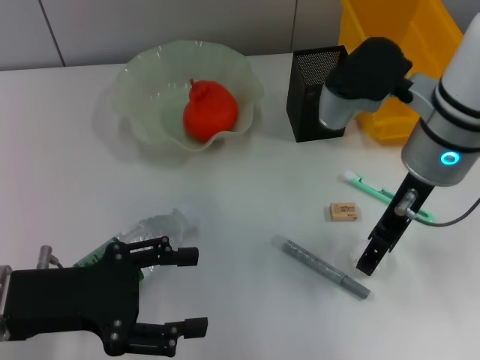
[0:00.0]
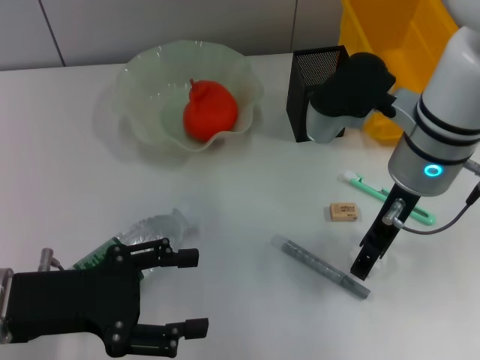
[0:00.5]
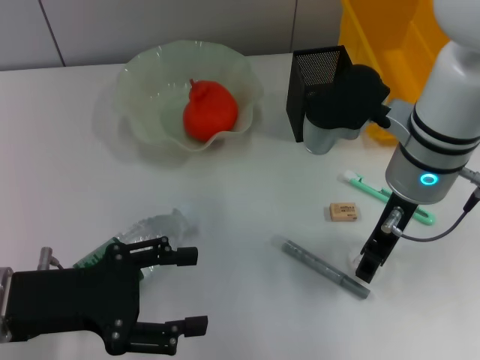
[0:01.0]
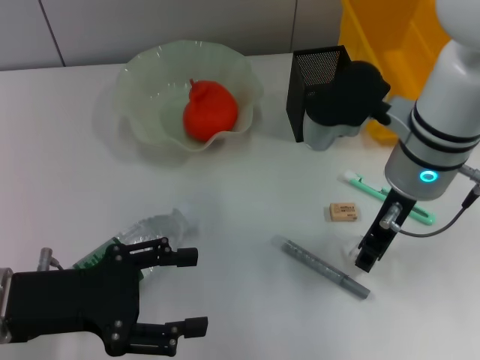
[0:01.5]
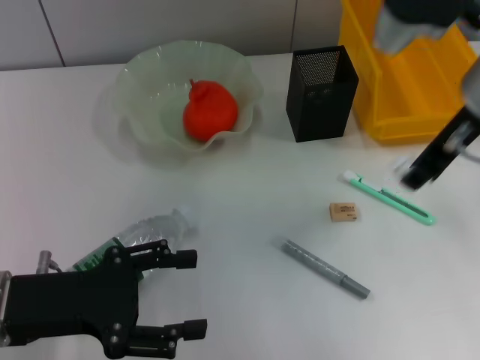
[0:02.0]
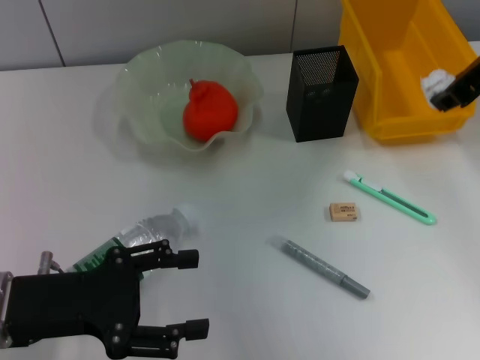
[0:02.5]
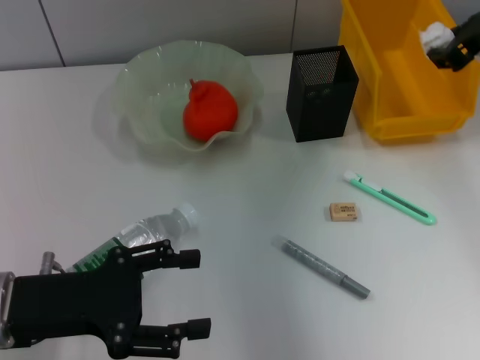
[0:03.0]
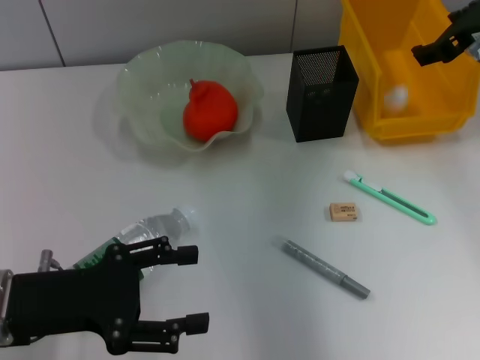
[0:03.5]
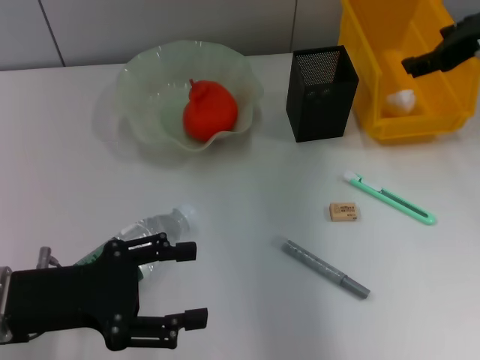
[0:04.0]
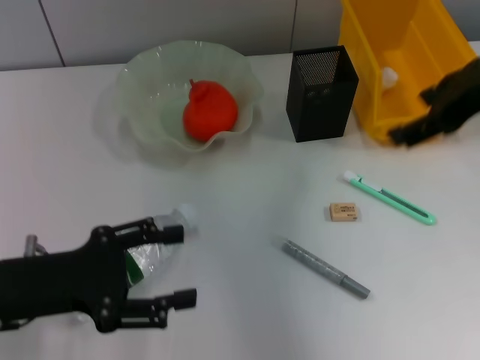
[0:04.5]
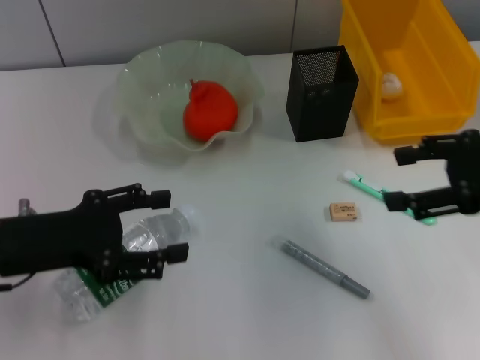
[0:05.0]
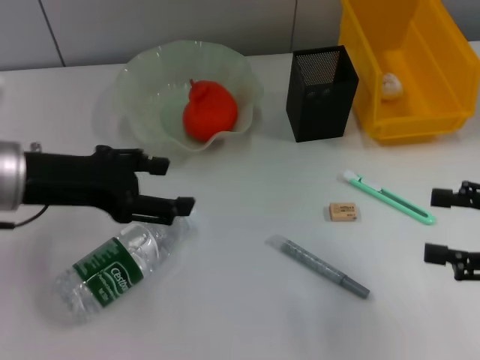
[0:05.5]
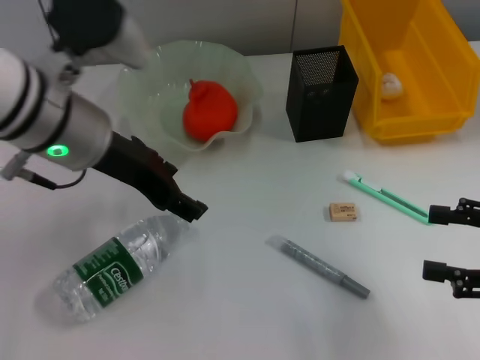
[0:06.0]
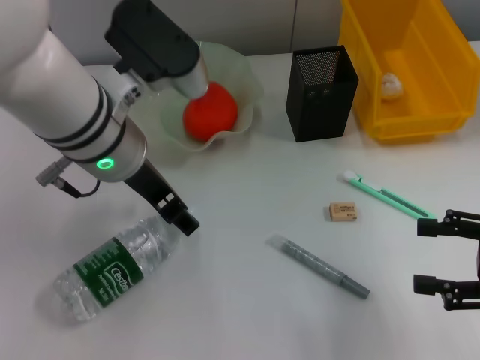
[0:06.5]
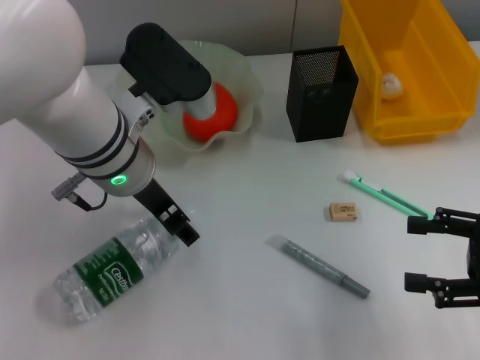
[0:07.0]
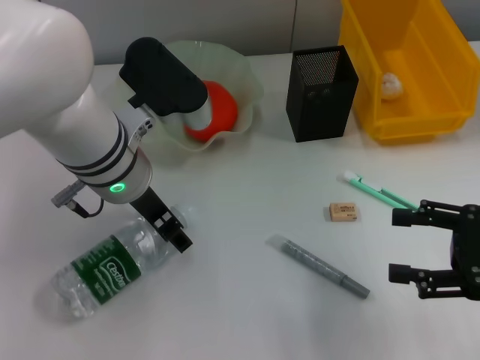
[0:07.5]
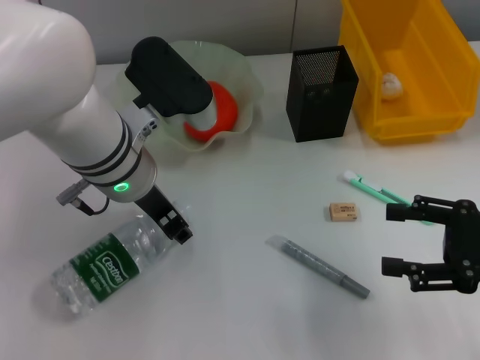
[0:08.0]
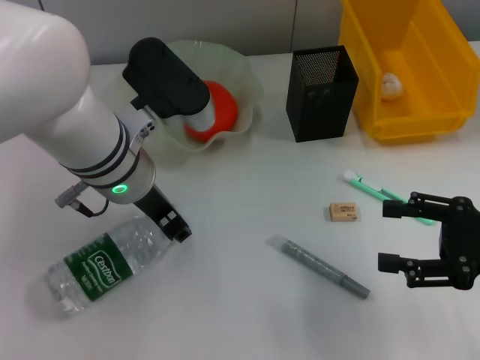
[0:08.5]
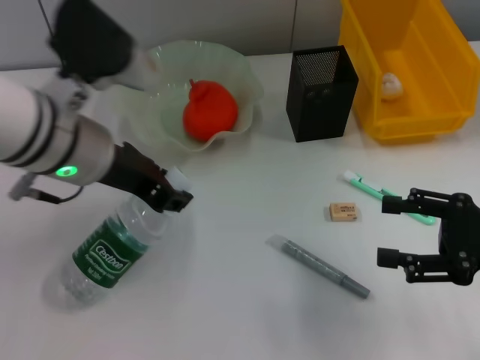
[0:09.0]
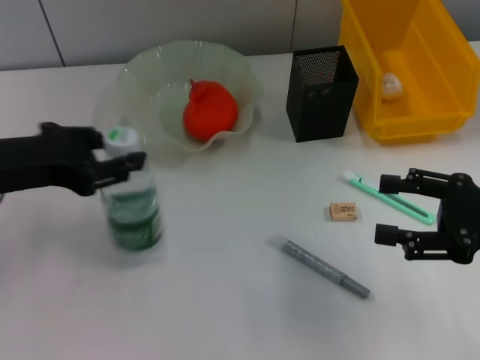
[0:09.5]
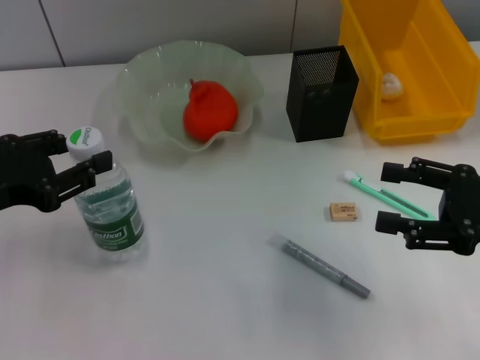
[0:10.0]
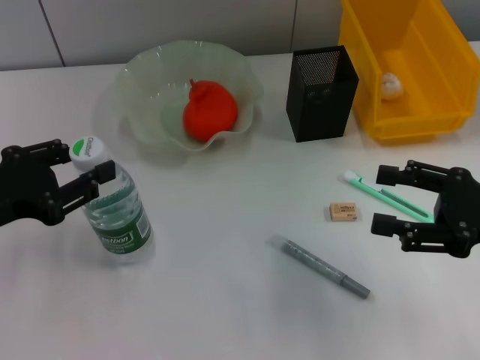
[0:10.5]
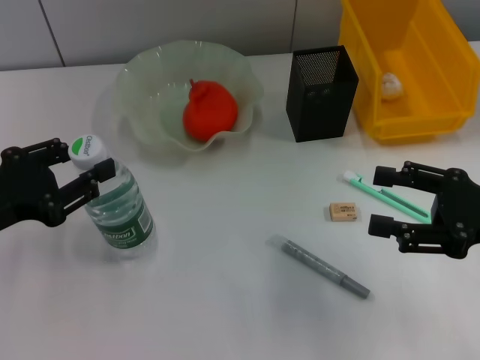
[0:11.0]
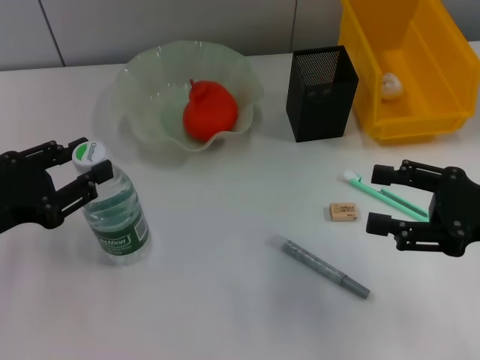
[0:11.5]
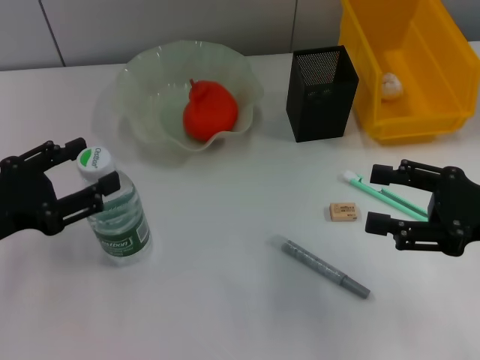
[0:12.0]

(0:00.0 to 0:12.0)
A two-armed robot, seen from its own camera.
Step, 0:02.0 - 0:03.5: Place the paper ball into the trash can with the right hand.
Step, 0:04.0 - 0:08.0: Grab the water bottle with the left hand.
0:00.0 - 0:02.0: The right gripper heads upward, covering approximately 5 cm, and closes up.
0:02.0 - 0:04.0: The right gripper moves to the right and forward, some 10 cm, and opens.
0:04.0 - 0:06.0: The right gripper moves backward and downward, some 20 cm, while the left gripper travels forward, upward and to the right by roughly 20 cm.
0:06.0 - 0:08.0: The left gripper moves downward, about 5 cm.
0:08.0 - 0:10.0: The left gripper heads to the left and backward, covering roughly 20 cm.
0:10.0 - 0:12.0: The grippers stay close to where they were, moving slightly.

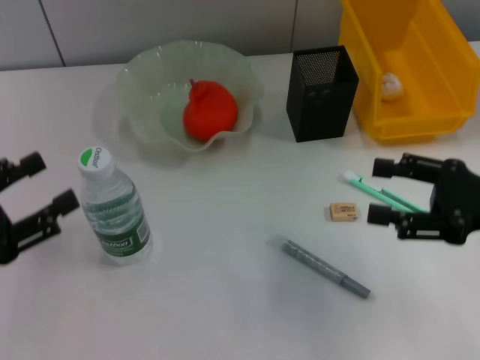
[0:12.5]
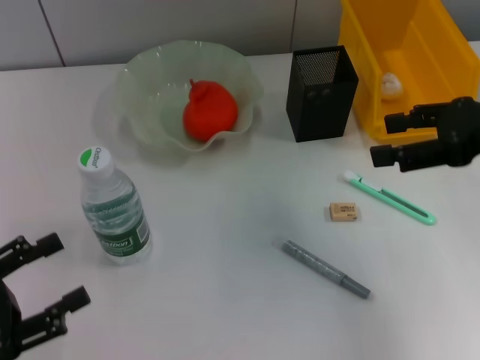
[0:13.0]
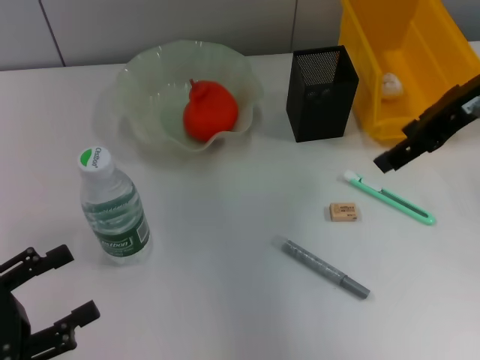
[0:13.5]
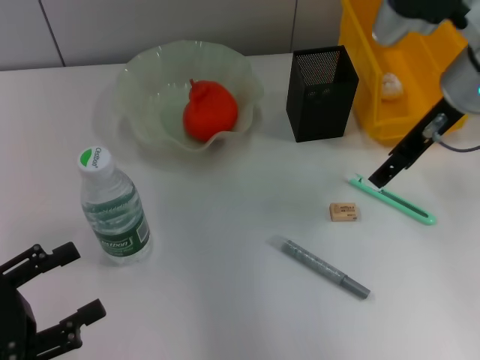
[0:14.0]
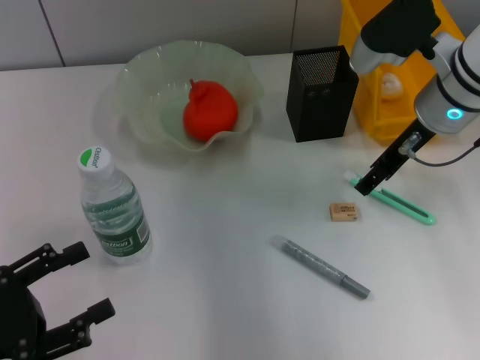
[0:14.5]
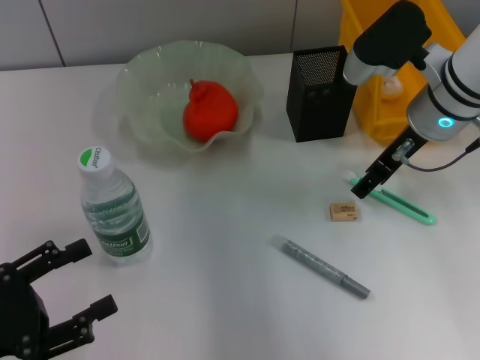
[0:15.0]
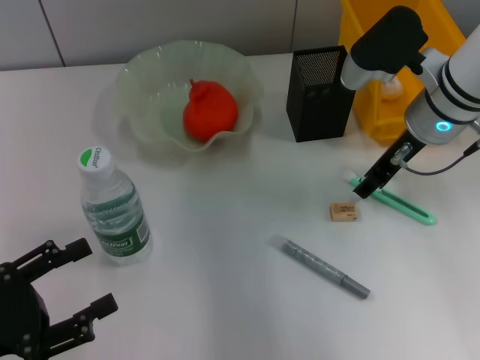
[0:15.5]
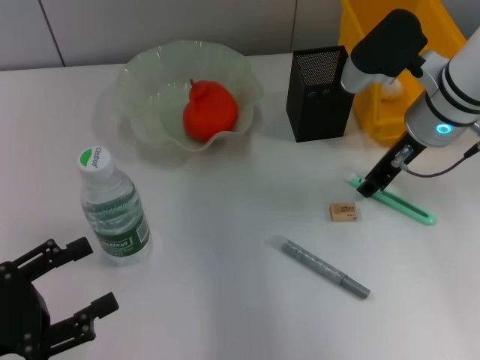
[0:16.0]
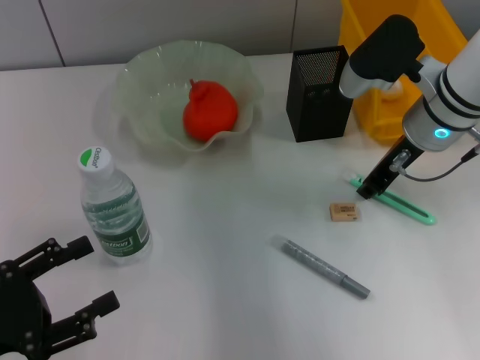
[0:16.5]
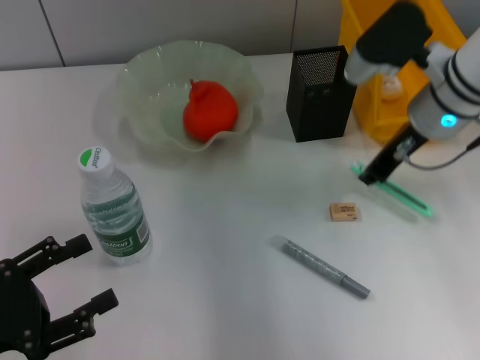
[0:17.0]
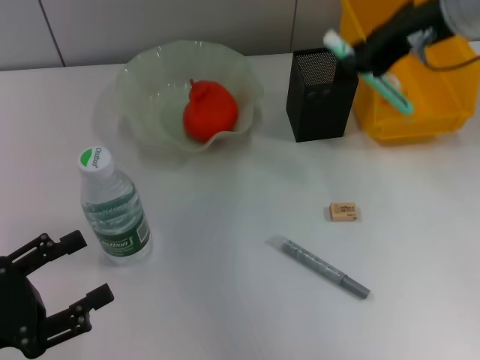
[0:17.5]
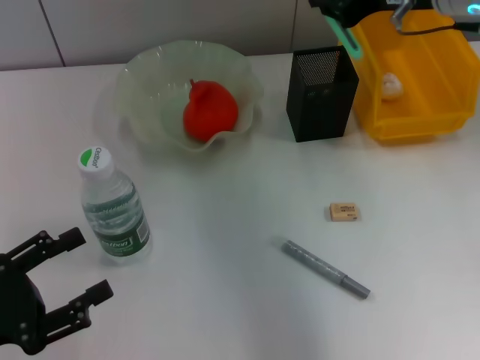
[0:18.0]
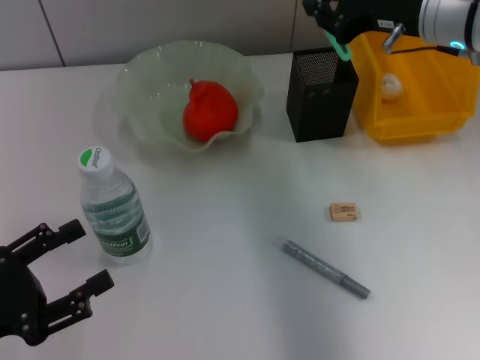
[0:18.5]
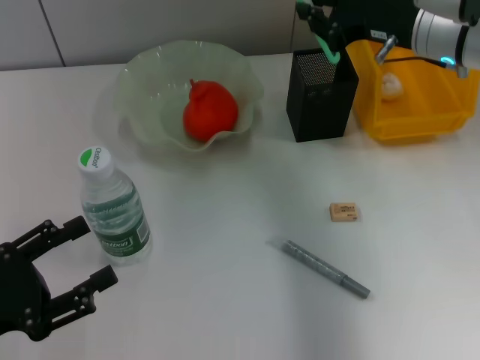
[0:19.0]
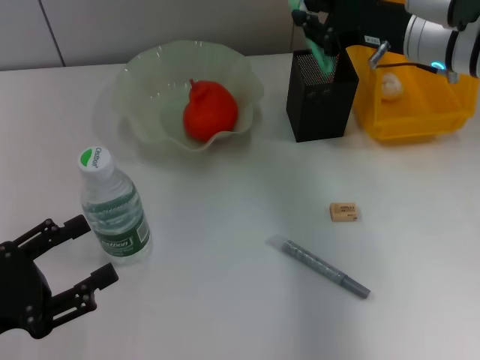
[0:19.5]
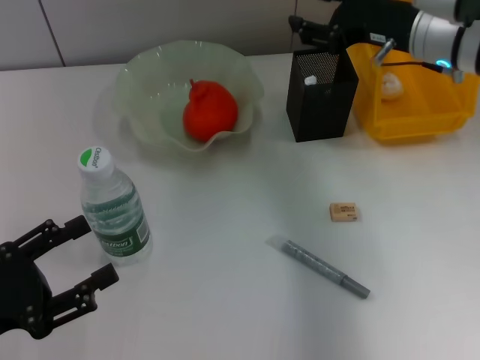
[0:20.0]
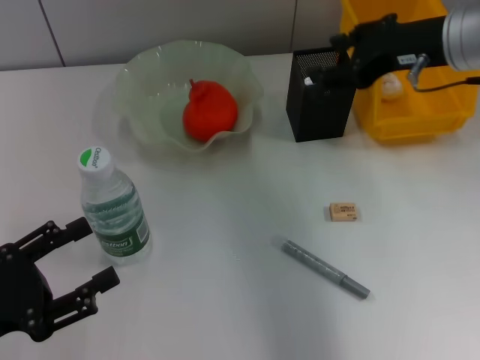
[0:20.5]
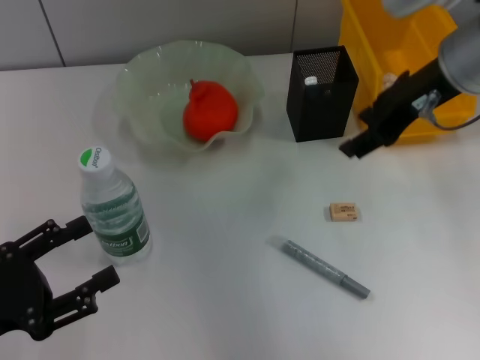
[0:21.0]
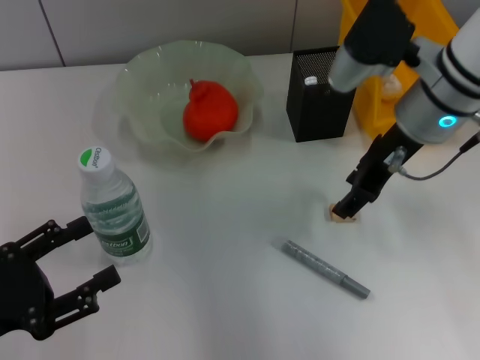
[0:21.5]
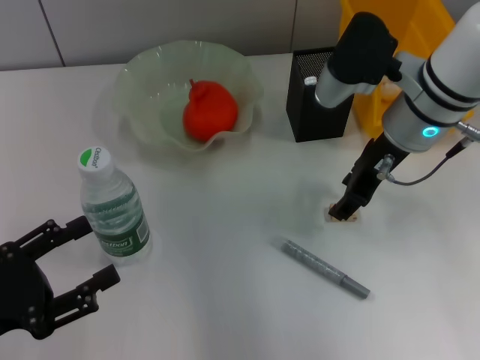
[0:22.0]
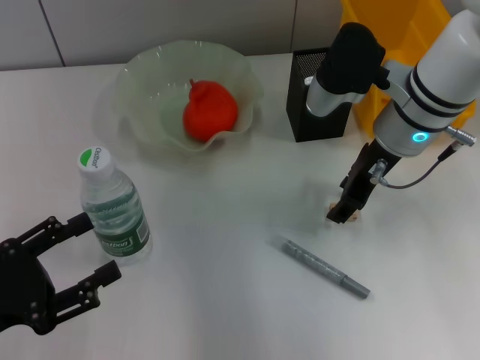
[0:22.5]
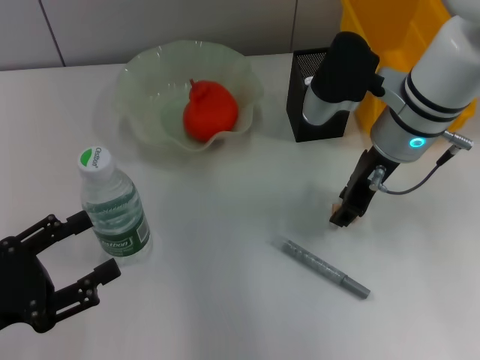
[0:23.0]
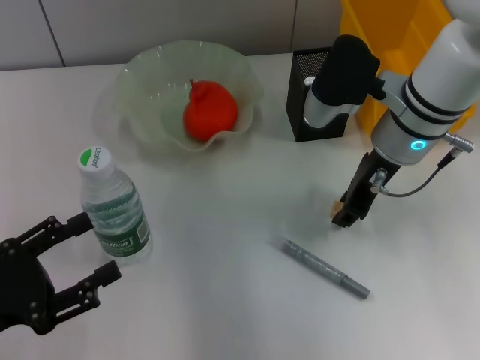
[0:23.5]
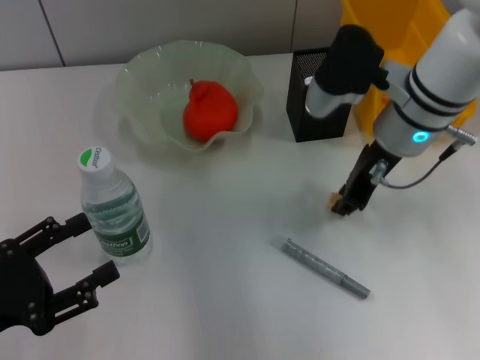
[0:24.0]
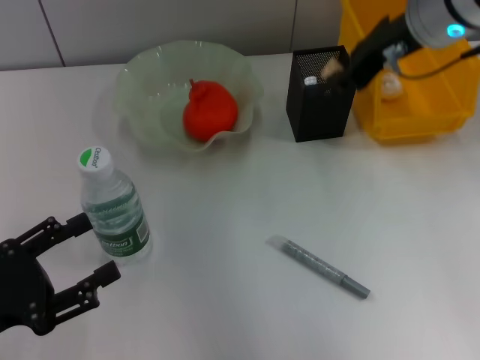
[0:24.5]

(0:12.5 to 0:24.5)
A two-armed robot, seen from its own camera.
Step, 0:12.5 - 0:16.5: Grab the blue utility knife with the right hand.
Step, 0:17.0 - 0:20.0: Place the blue utility knife into the pen holder with the right hand.
Step, 0:20.5 - 0:23.0: Grab the eraser with the right hand.
0:12.5 - 0:14.5: The left gripper shifts by approximately 5 cm. Meanwhile the right gripper moves forward and to the left, some 20 cm.
0:14.5 - 0:16.5: The right gripper closes up.
0:16.5 - 0:18.5: The right gripper moves upward, some 5 cm.
0:18.5 - 0:20.5: The right gripper opens.
0:20.5 - 0:22.5: The right gripper travels downward and to the left by approximately 10 cm.
0:22.5 - 0:24.5: The right gripper travels upward by some 10 cm, and closes.

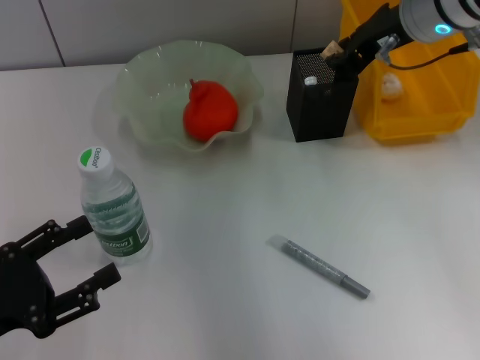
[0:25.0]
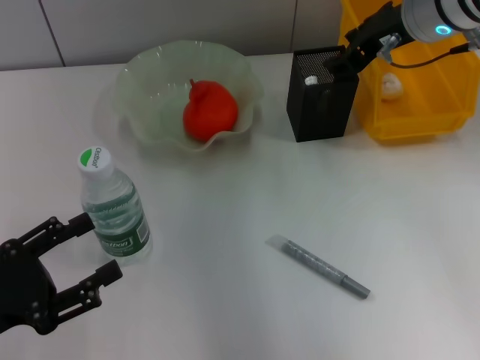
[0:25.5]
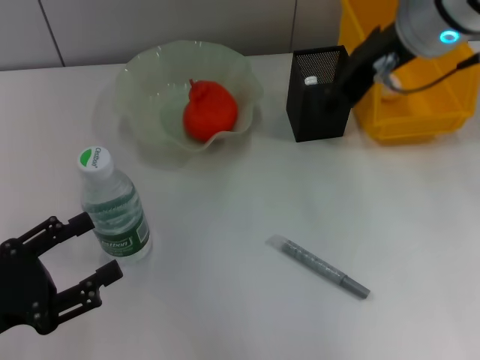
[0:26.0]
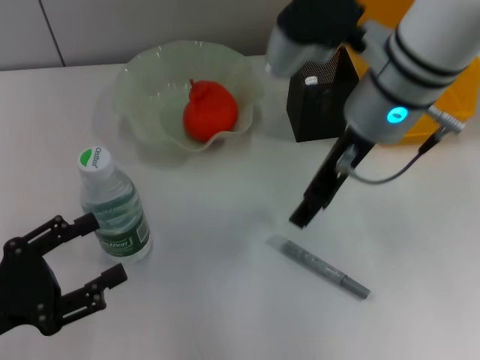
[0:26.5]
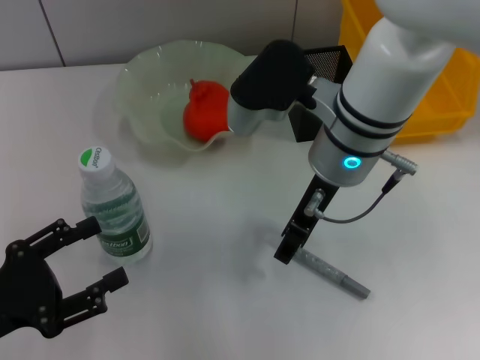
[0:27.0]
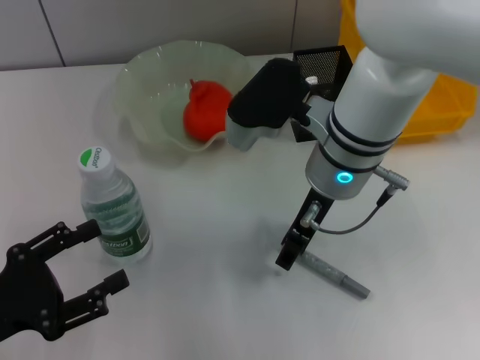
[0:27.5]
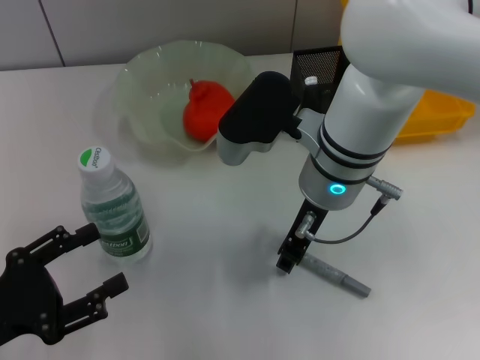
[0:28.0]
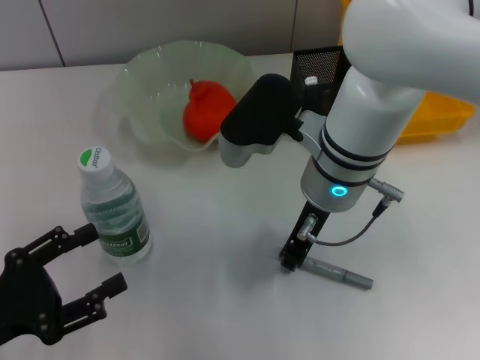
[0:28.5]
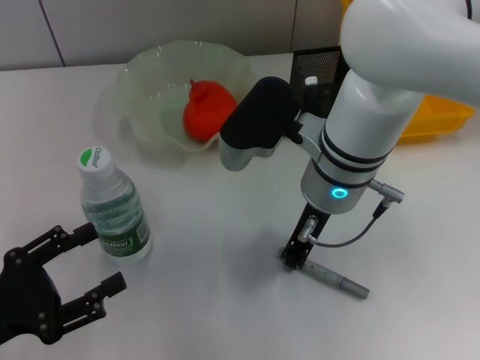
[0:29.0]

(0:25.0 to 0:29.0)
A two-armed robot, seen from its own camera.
Step, 0:26.0 - 0:29.0: Grab the gray glue with the right hand.
0:25.0 - 0:27.0: The right gripper moves to the left, backward and downward, some 15 cm, and opens its fingers.
0:27.0 - 0:29.0: The right gripper closes up.
